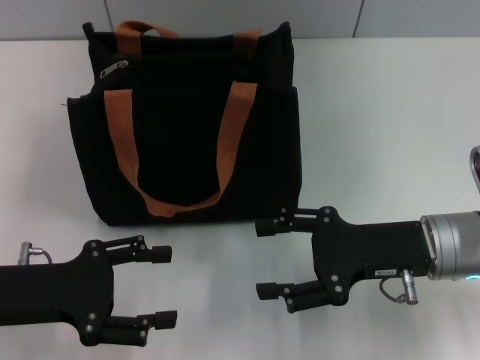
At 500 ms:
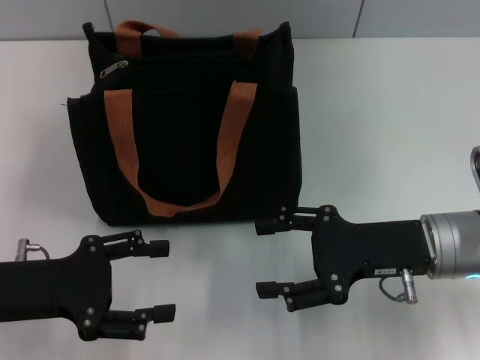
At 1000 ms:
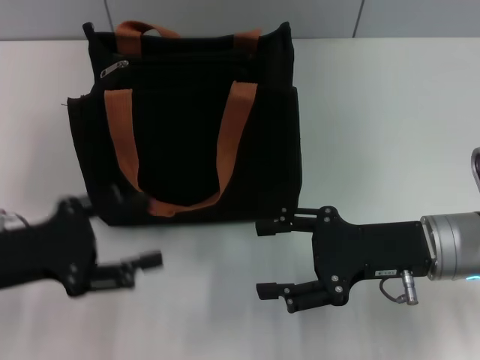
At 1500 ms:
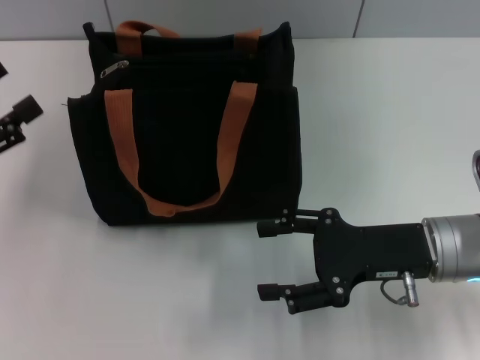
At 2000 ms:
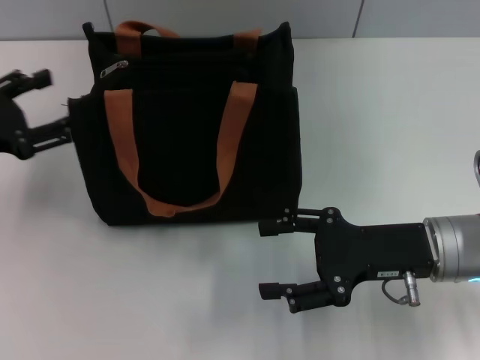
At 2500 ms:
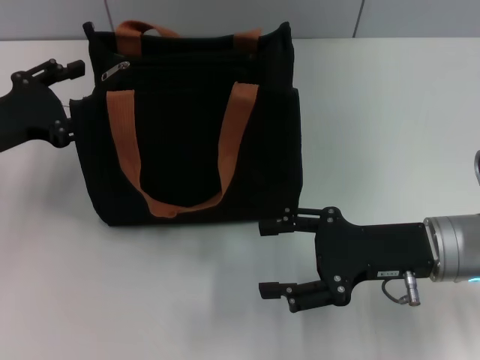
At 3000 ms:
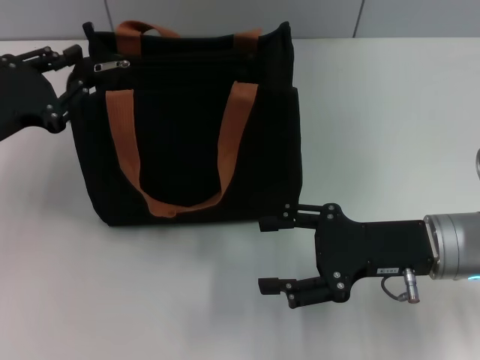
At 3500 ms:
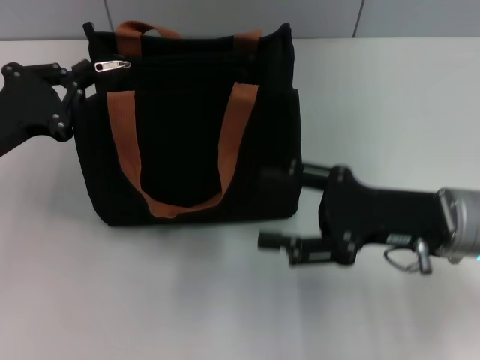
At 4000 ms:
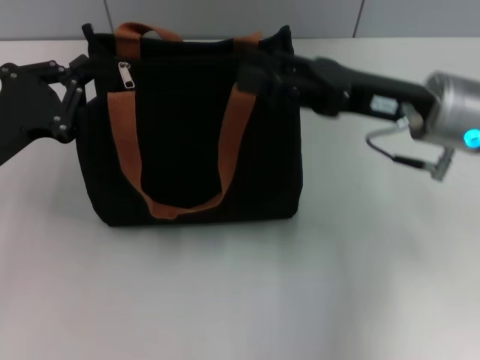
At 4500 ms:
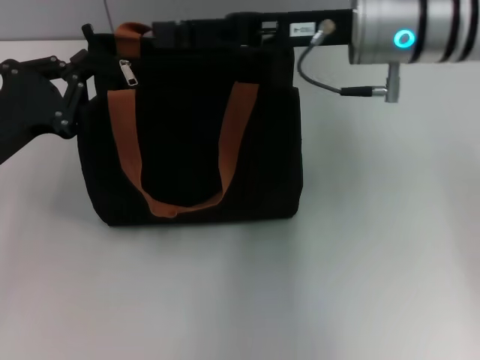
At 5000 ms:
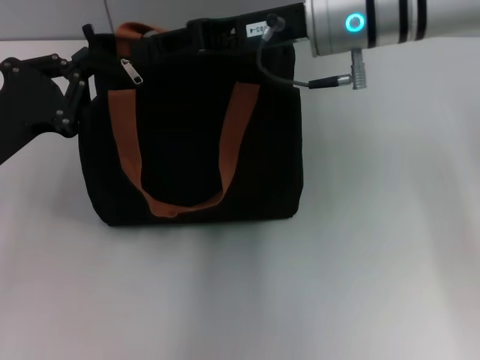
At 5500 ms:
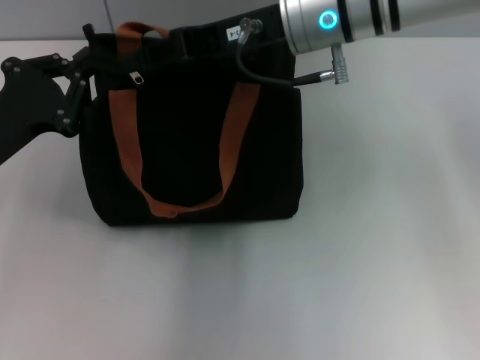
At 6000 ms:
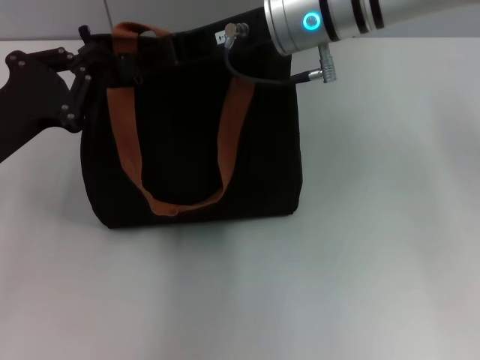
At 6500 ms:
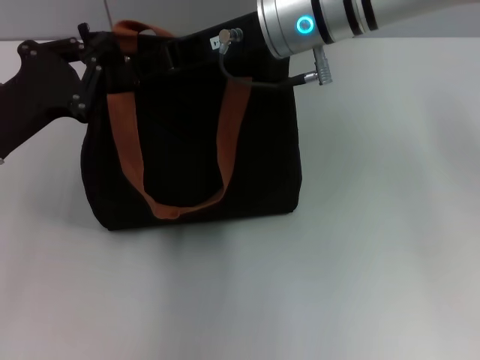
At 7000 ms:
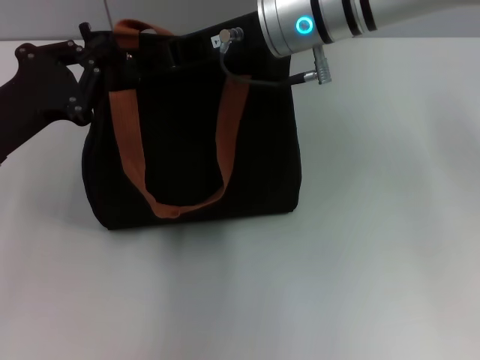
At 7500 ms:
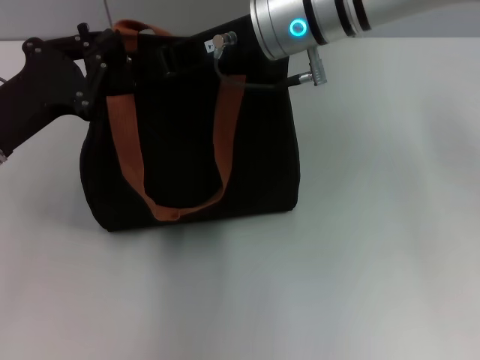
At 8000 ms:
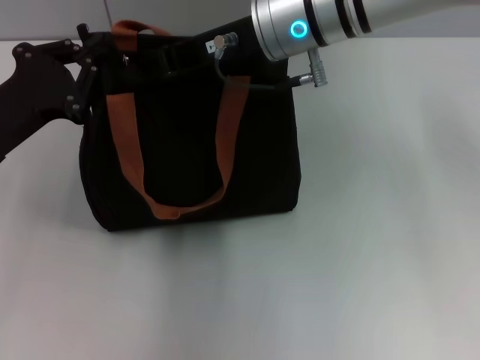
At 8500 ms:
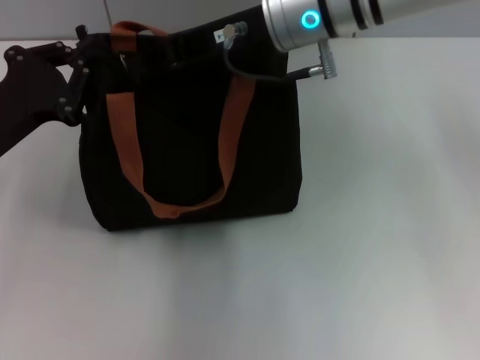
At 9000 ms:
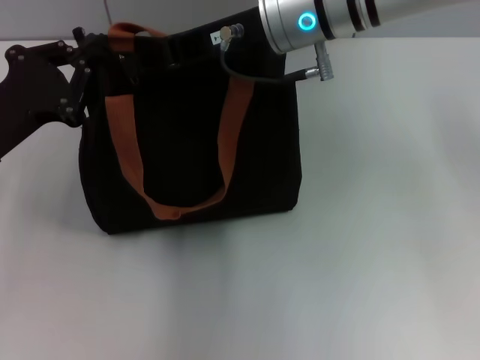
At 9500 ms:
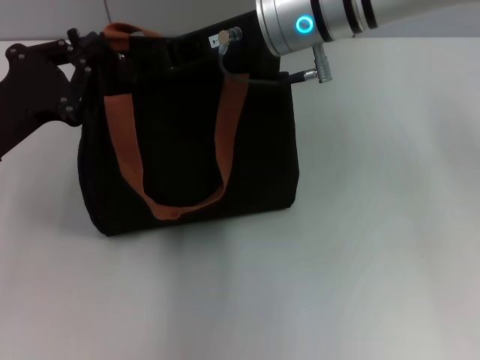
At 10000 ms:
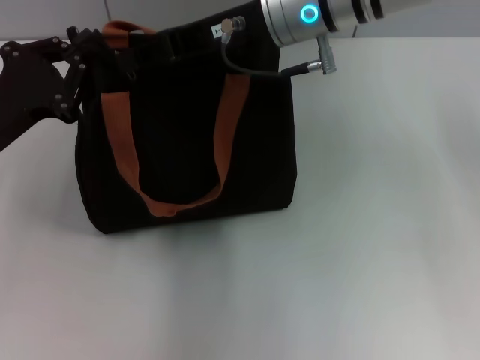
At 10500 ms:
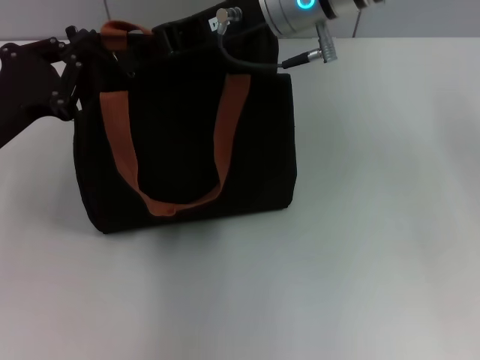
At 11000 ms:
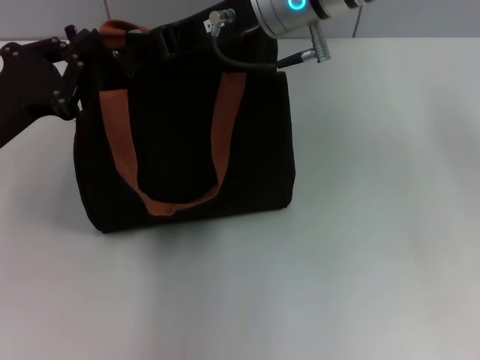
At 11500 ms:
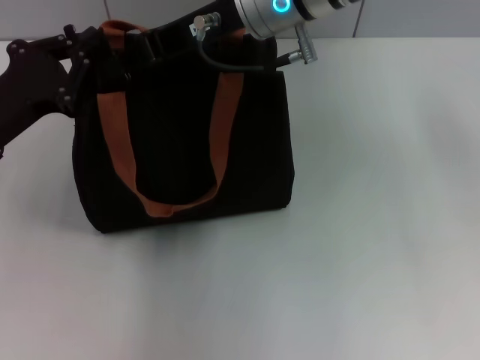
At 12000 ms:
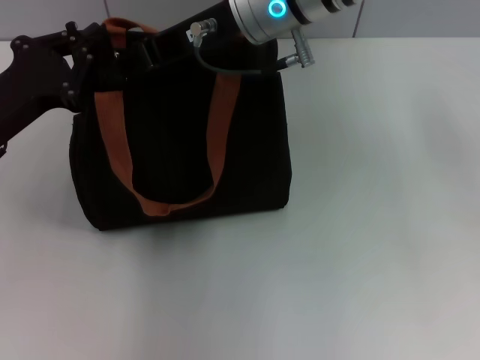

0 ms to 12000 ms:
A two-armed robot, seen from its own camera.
0 ms to 2000 ms: The left gripper travels forward and to the left by some 10 cm.
2000 ms to 4000 ms: The right gripper travels upward and forward by about 10 cm. Meanwhile the left gripper ends up about 5 cm from where it was, and closes.
4000 ms to 6000 ms: The right gripper goes about 15 cm to the left, forward and upward, and closes its fingers.
6000 ms to 12000 ms: The grippers move only a little.

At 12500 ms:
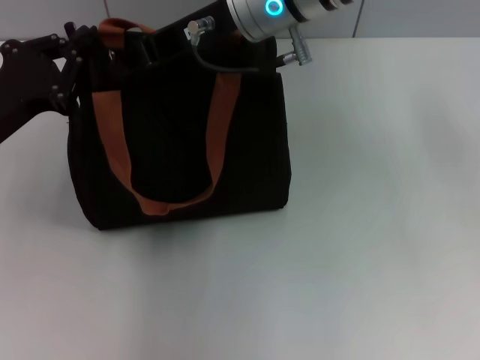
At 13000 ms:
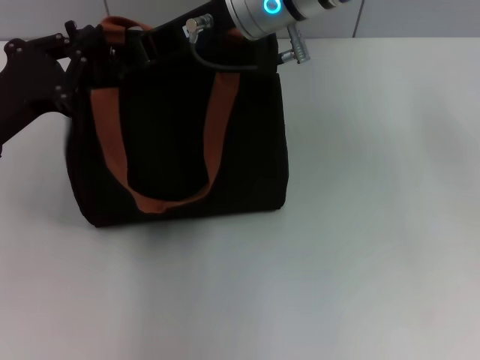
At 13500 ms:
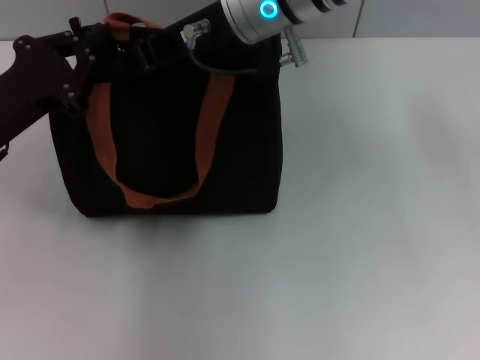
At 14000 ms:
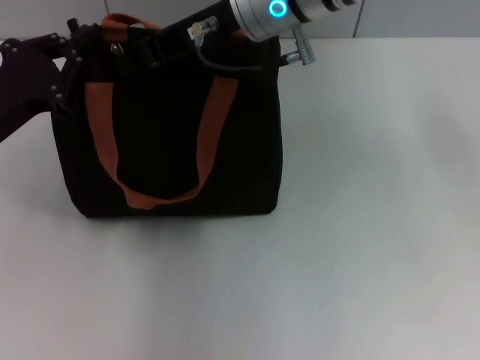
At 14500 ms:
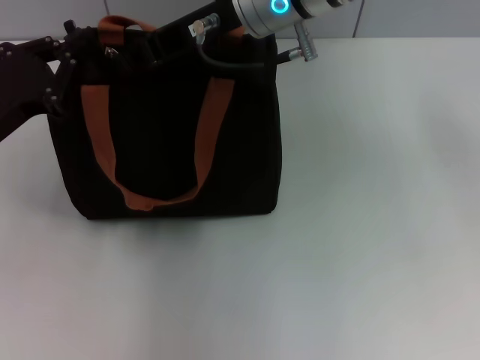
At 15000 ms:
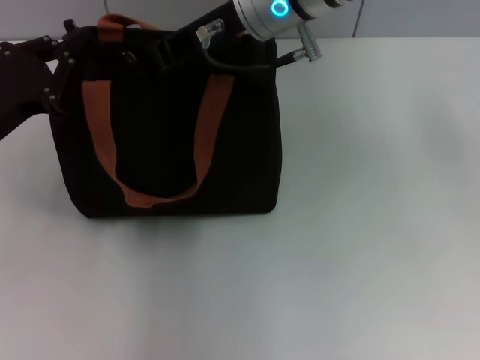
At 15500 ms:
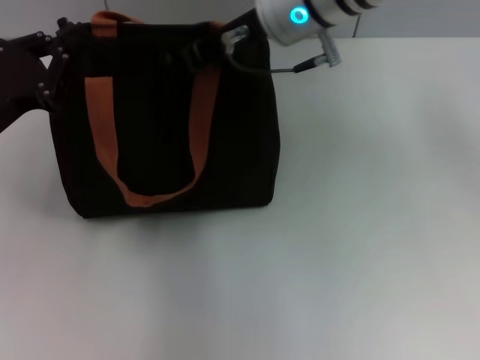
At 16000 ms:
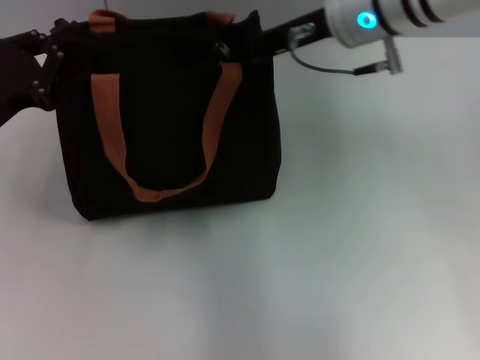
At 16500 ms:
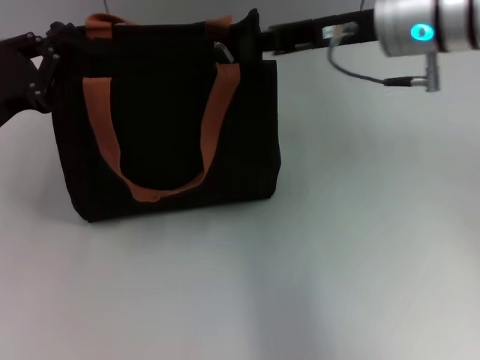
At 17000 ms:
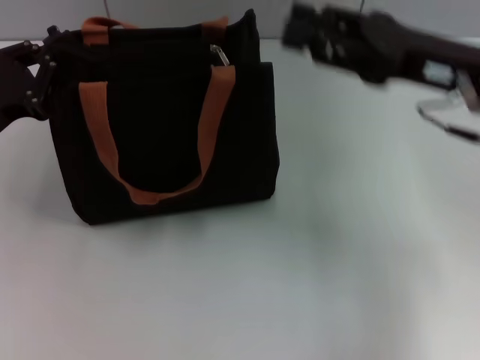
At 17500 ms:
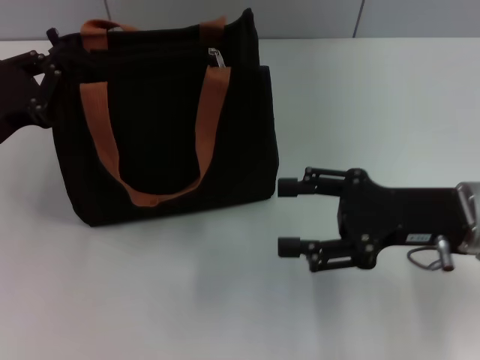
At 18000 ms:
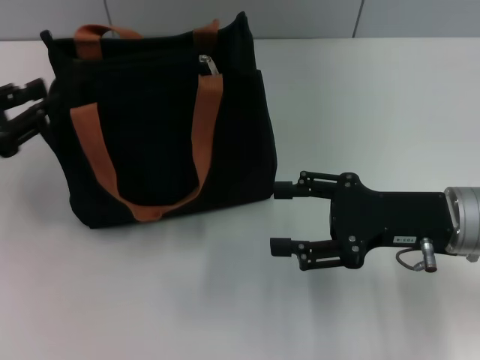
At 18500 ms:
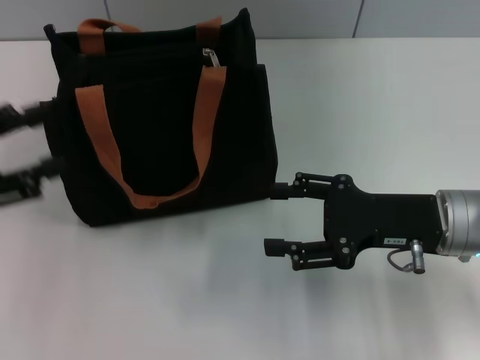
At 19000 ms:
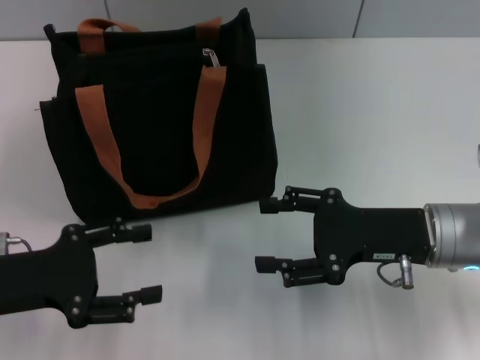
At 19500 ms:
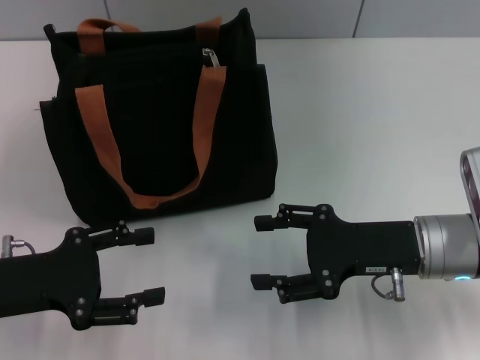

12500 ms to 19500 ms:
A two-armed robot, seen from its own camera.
Step, 12500 ms to 16000 ms: Pull up the zipper with your right hand.
Step, 16500 ms to 18000 ms: Grab the zipper with your left hand.
12500 ms to 14500 ms: The right gripper closes its fingers.
14500 ms to 16000 ms: The right gripper goes roughly 10 cm to the right.
16000 ms to 17500 ms: The right gripper is displaced backward, downward and to the right by some 20 cm, and opens.
17500 ms to 19500 ms: The left gripper is displaced backward by some 5 cm, and opens its fingers.

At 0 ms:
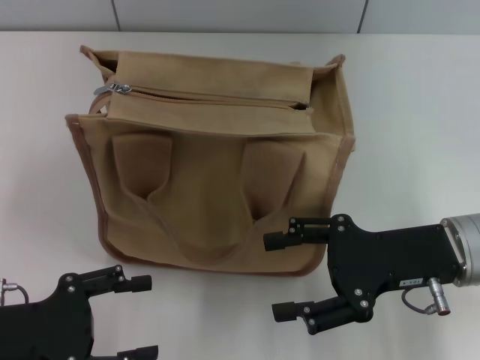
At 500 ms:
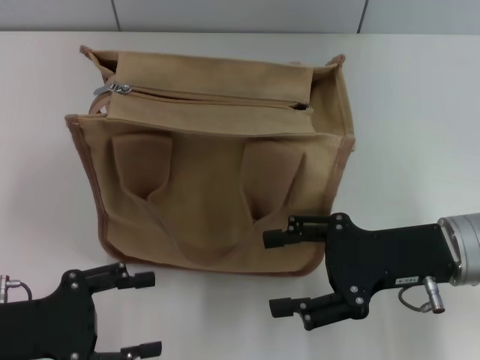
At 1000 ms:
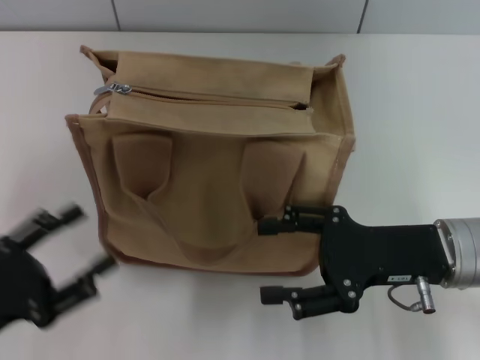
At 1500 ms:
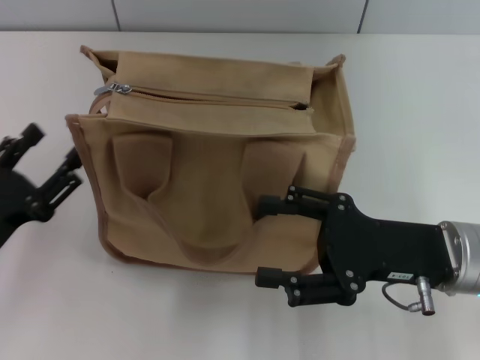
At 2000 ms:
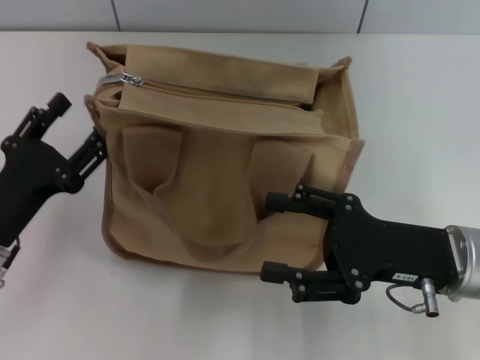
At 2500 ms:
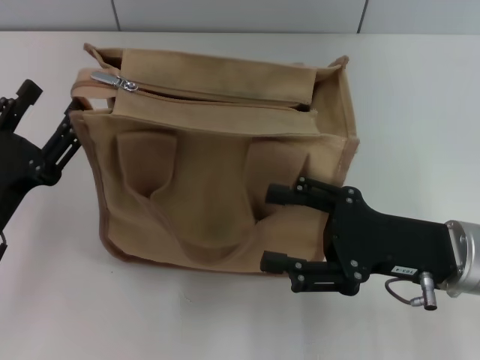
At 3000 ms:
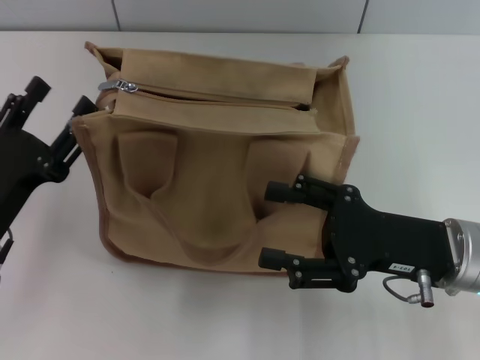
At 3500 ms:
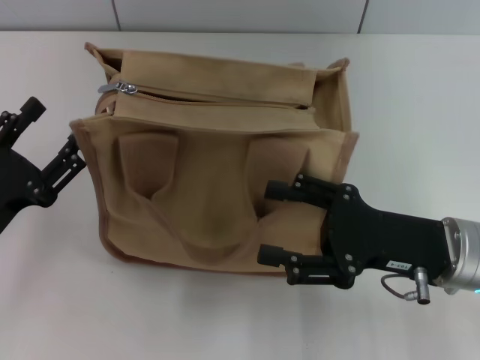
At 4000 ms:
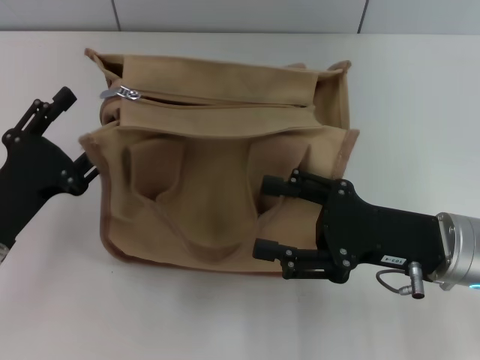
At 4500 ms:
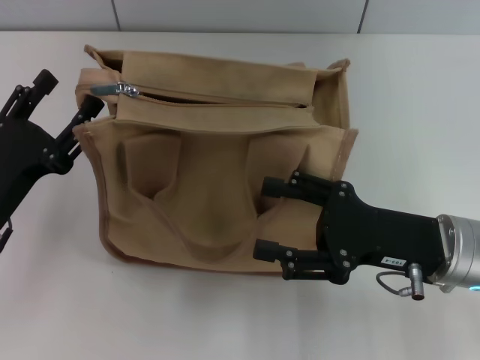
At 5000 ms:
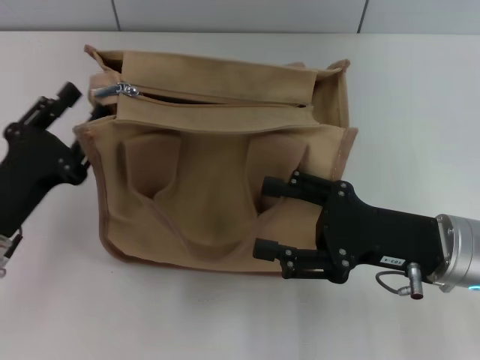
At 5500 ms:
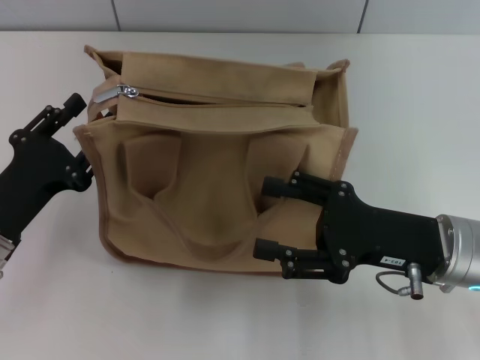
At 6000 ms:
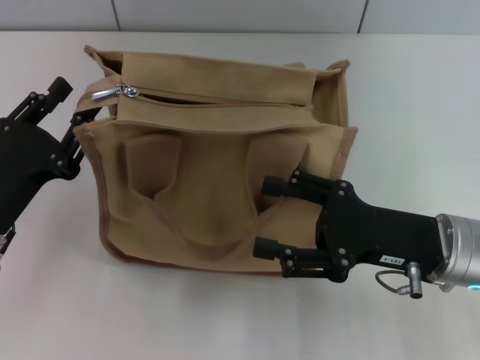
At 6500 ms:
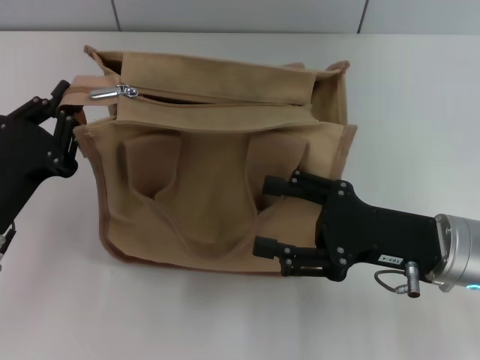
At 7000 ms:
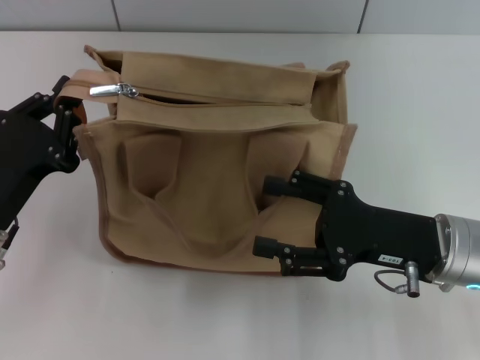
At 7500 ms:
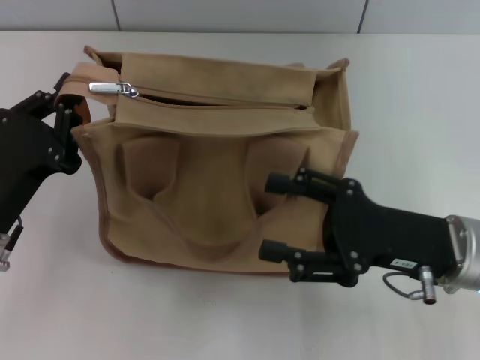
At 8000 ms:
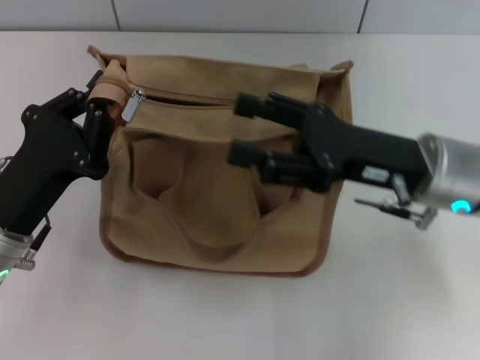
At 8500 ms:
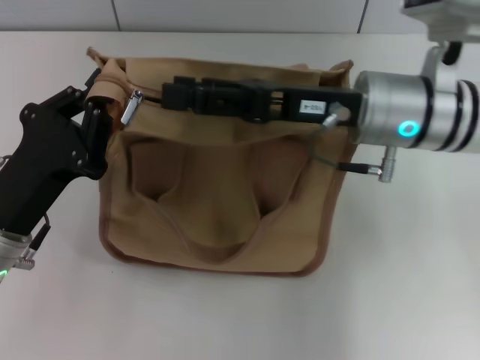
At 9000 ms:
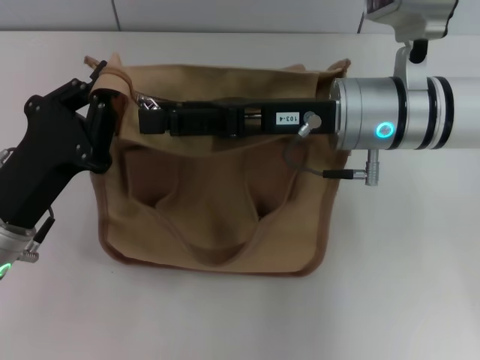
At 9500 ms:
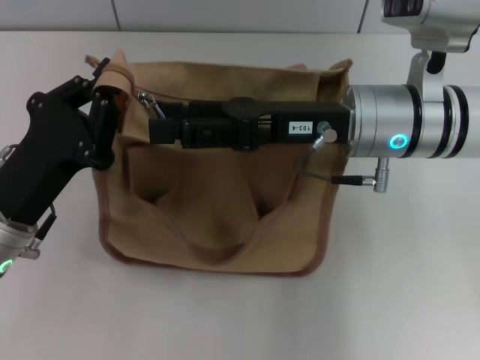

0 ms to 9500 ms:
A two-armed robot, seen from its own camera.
0 ms to 2000 ms: The left gripper changes place by some 5 cm.
2000 ms to 5500 ms: The grippers stay close to where they were, moving slightly.
5500 ms to 7500 ms: The left gripper closes its fingers.
7500 ms to 9500 ms: The right gripper is displaced forward, to the left and upward by roughly 15 cm.
